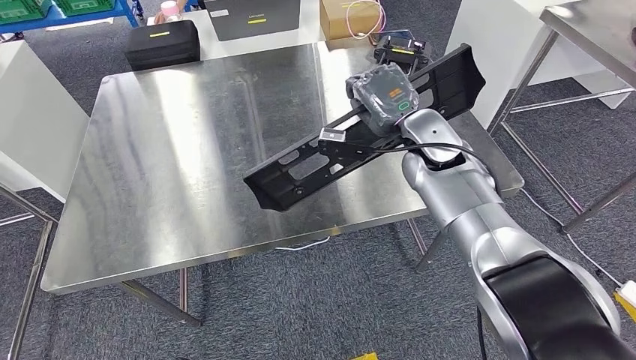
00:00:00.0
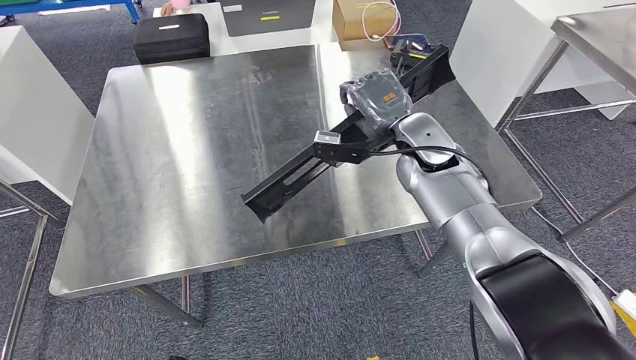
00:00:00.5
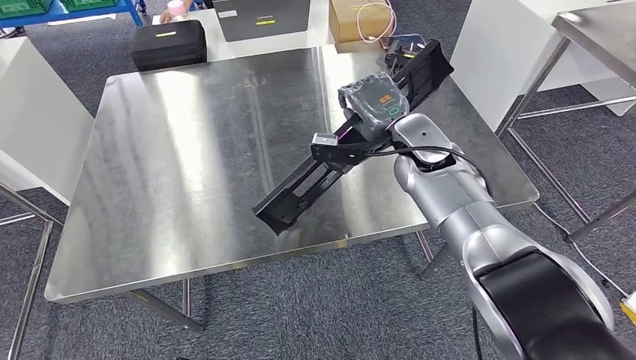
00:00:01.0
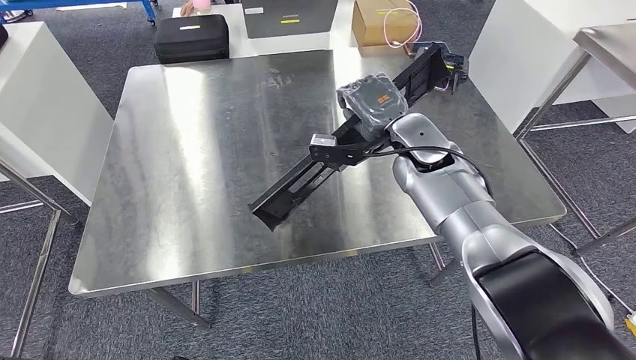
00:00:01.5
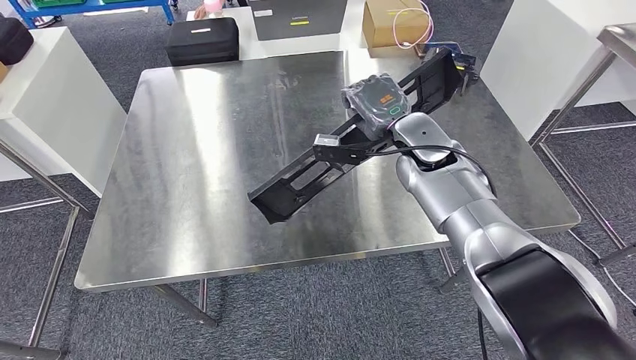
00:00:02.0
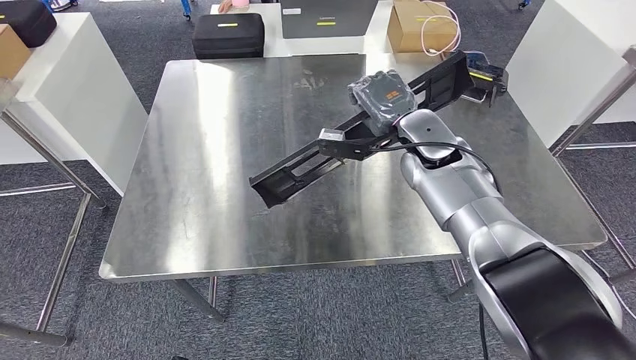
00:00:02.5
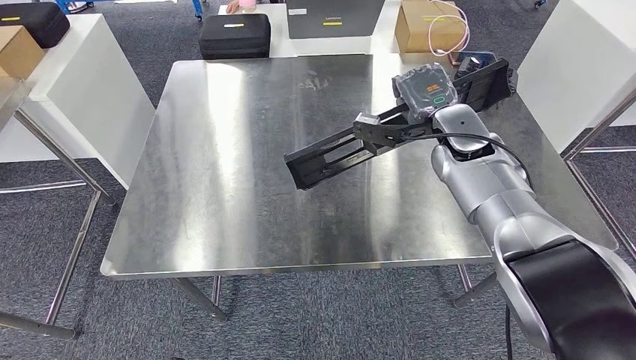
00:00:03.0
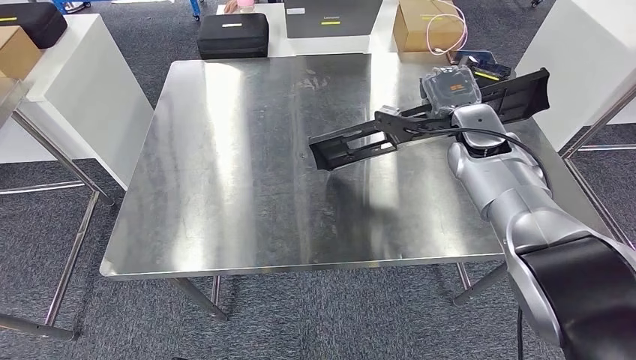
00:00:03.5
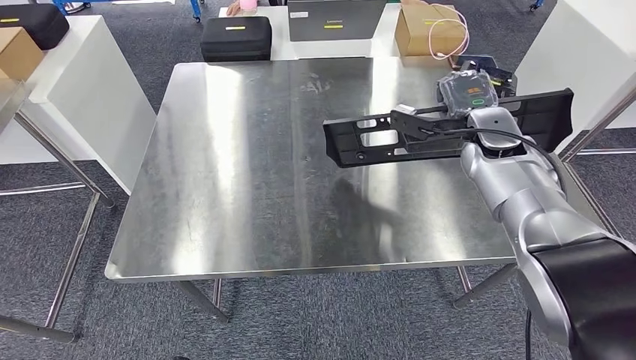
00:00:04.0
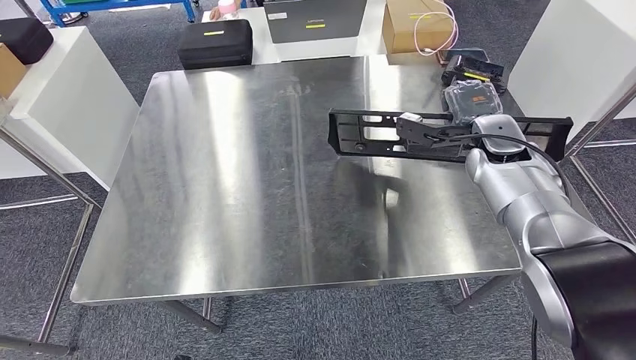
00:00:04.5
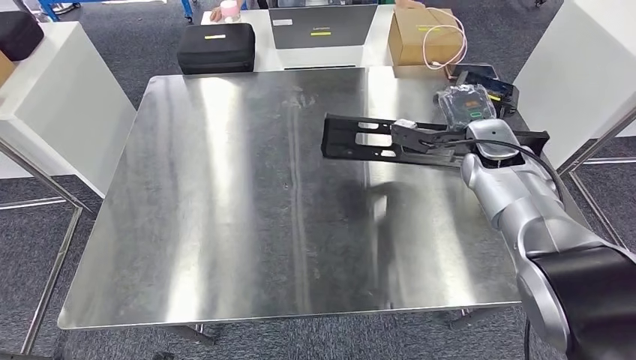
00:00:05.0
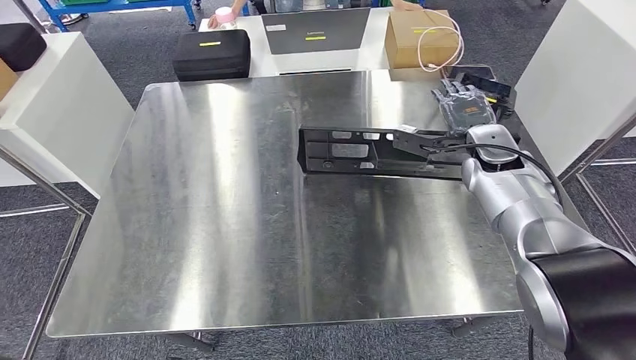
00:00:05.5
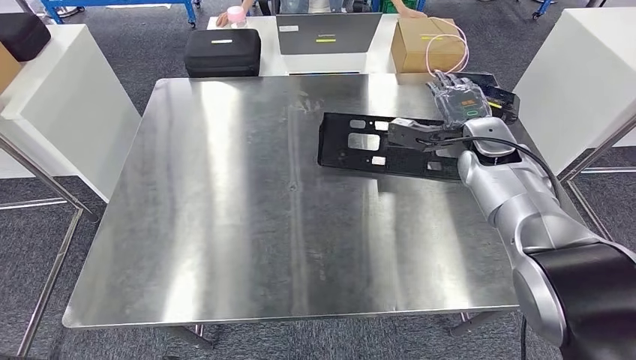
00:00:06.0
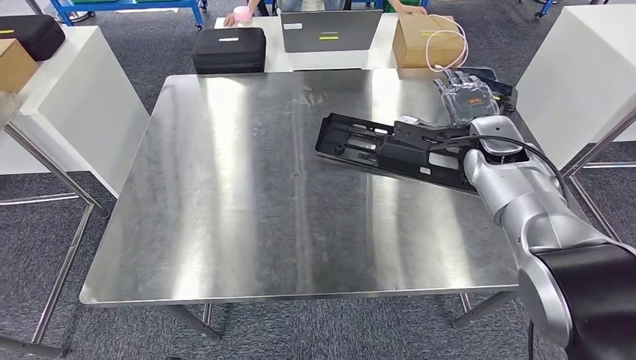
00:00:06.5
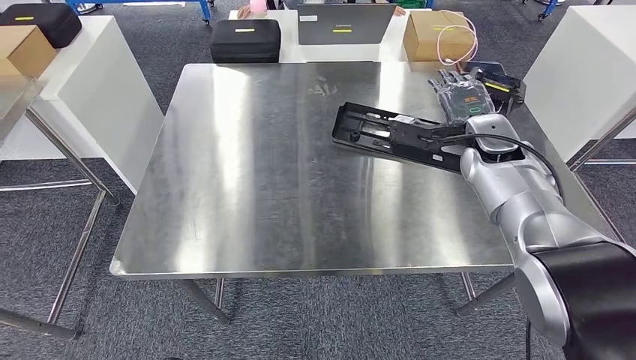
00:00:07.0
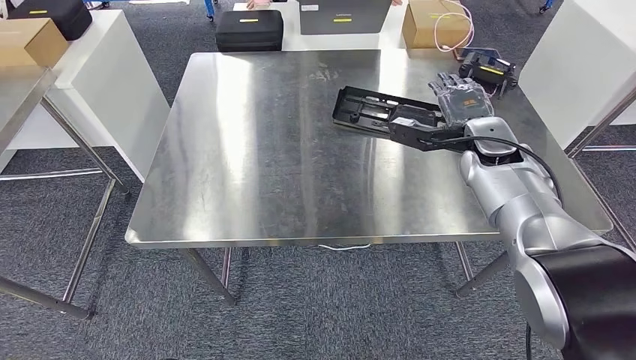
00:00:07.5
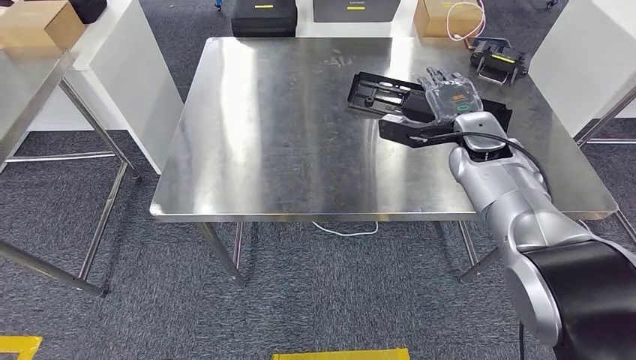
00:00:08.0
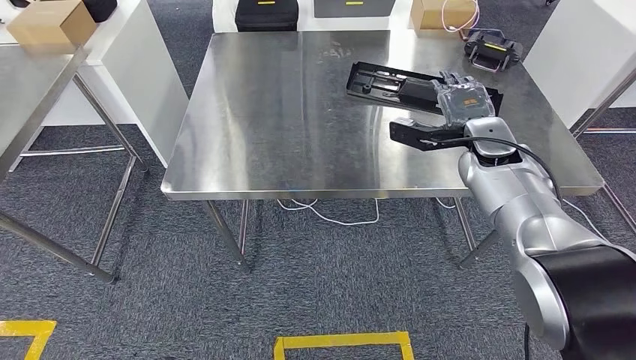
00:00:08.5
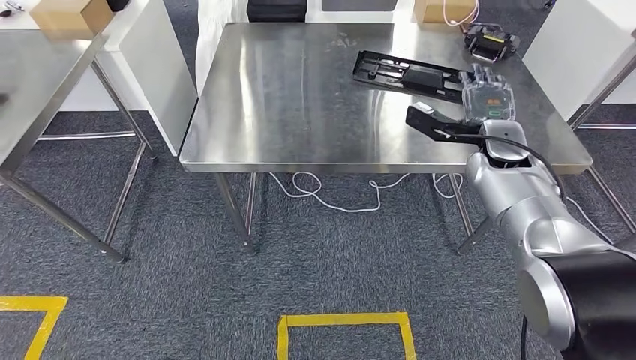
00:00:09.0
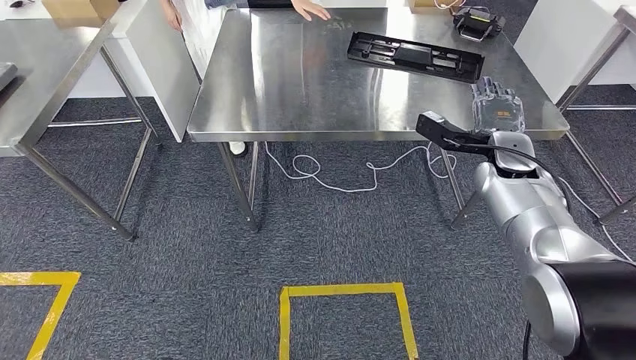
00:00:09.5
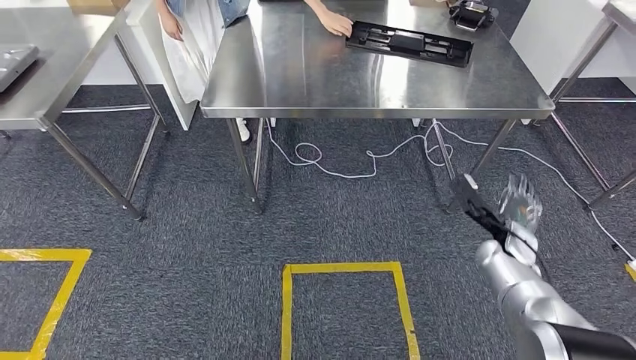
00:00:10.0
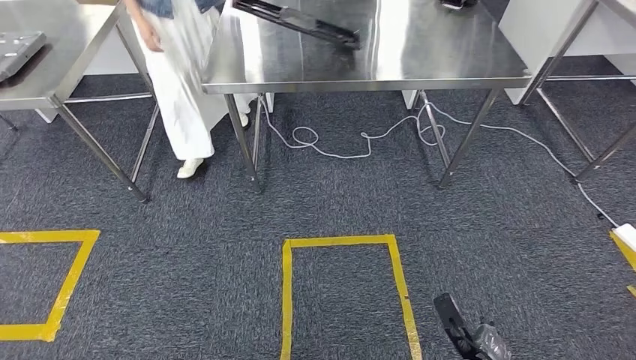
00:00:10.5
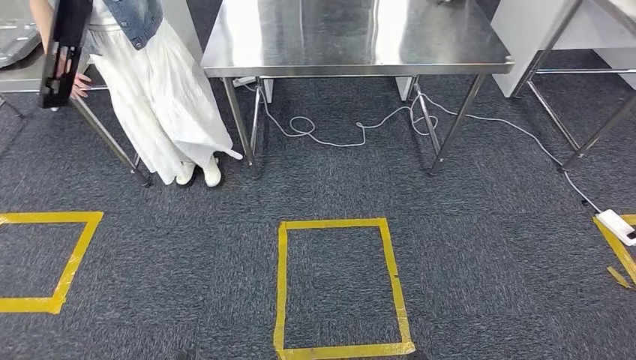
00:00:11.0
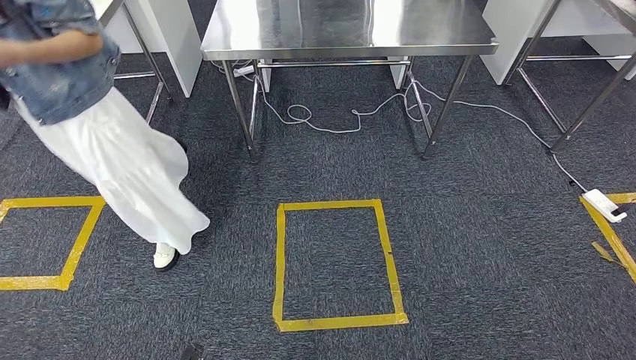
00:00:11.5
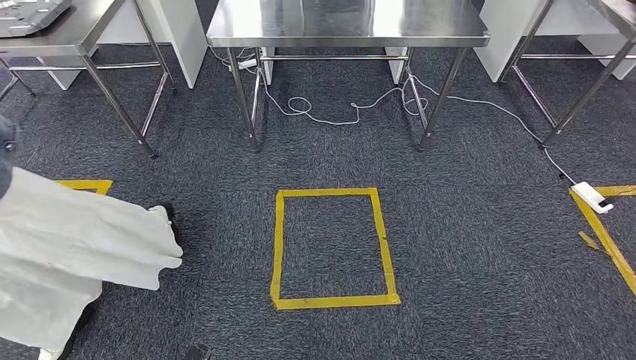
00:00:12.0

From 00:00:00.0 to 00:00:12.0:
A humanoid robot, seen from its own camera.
Step, from 00:00:00.0 to 00:00:06.0: Insert the large material into the corresponding slot on the workbench.

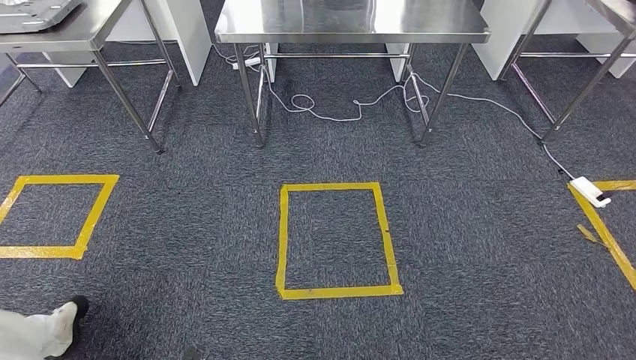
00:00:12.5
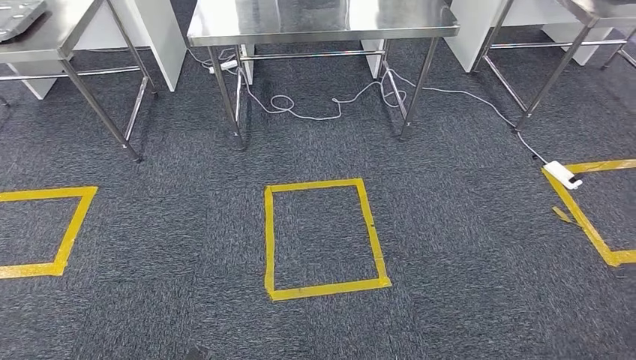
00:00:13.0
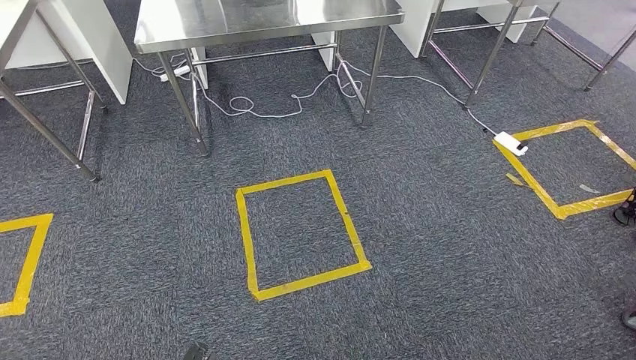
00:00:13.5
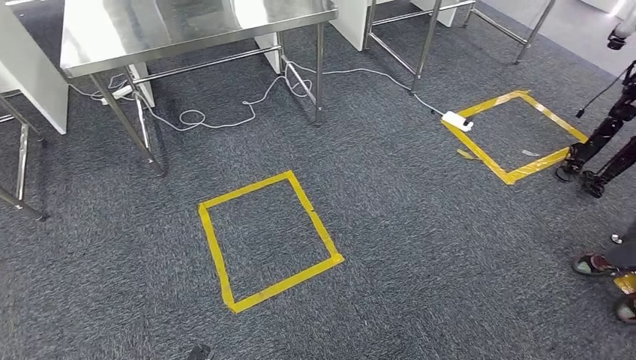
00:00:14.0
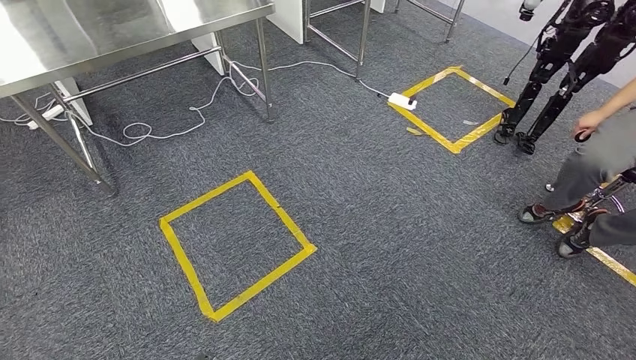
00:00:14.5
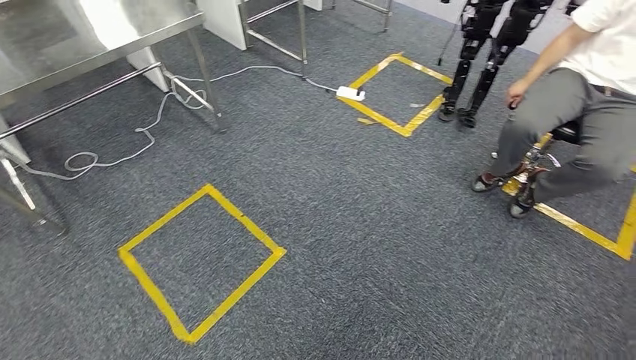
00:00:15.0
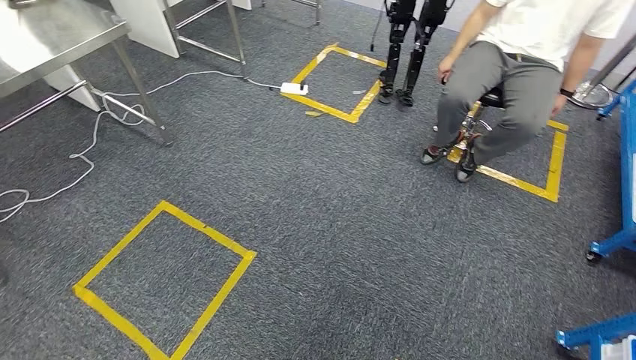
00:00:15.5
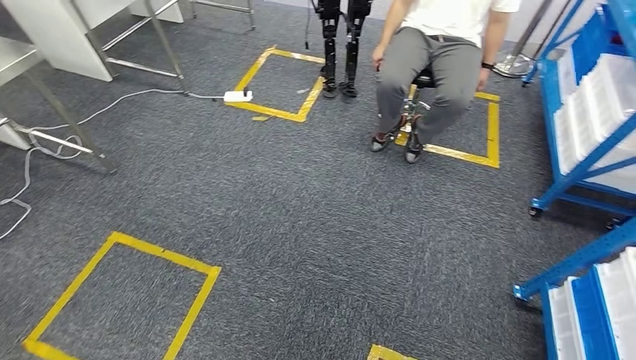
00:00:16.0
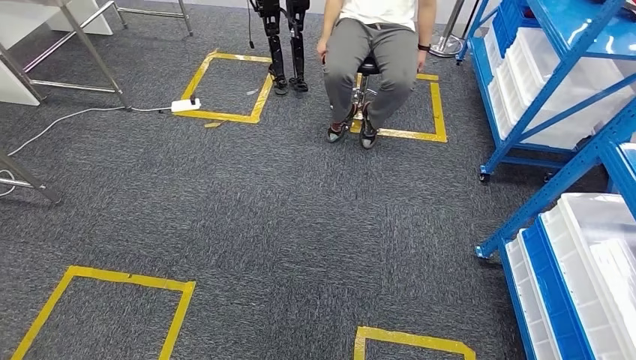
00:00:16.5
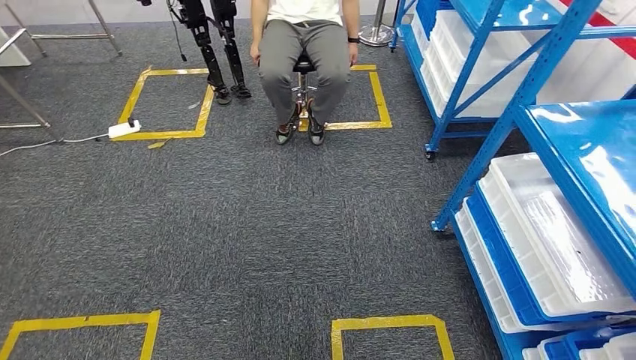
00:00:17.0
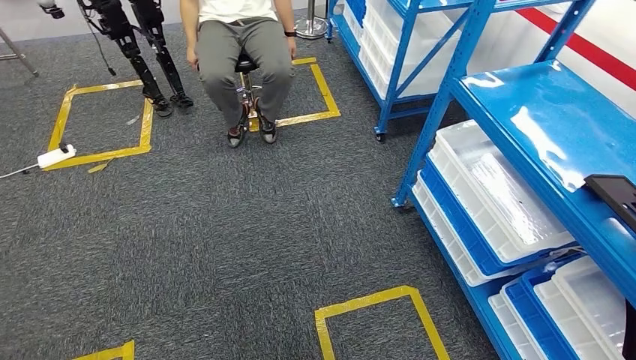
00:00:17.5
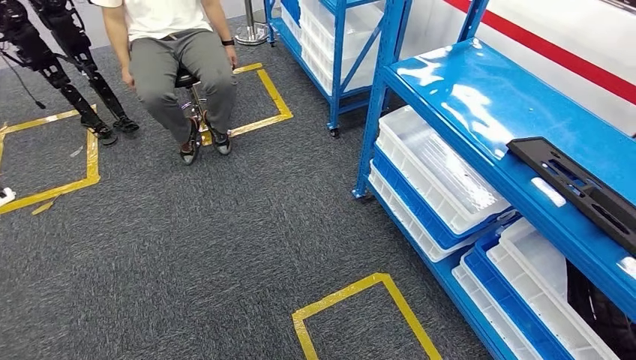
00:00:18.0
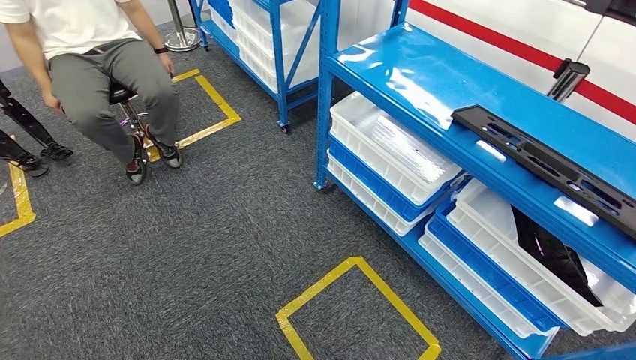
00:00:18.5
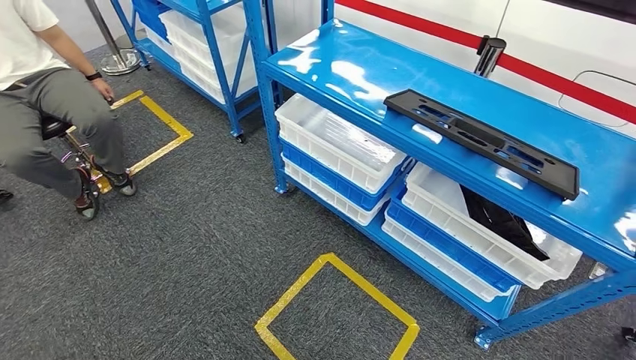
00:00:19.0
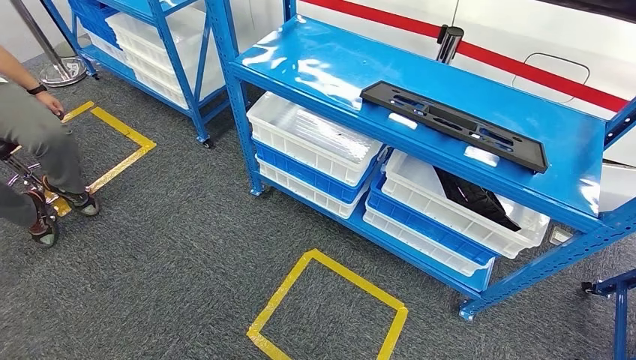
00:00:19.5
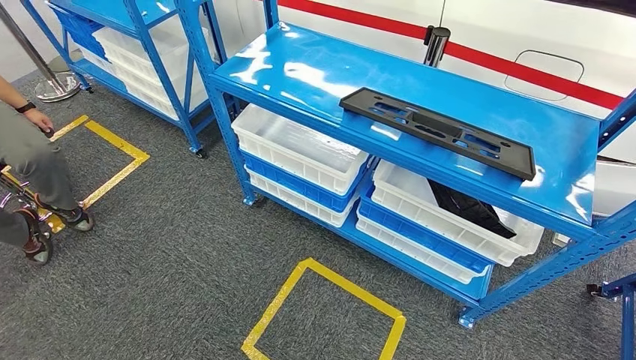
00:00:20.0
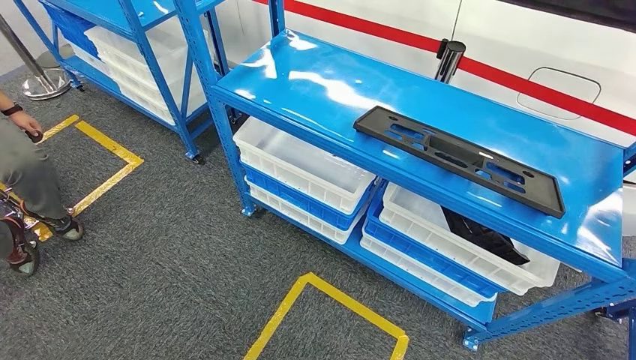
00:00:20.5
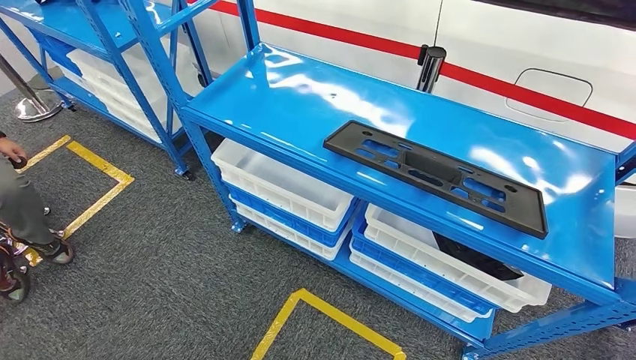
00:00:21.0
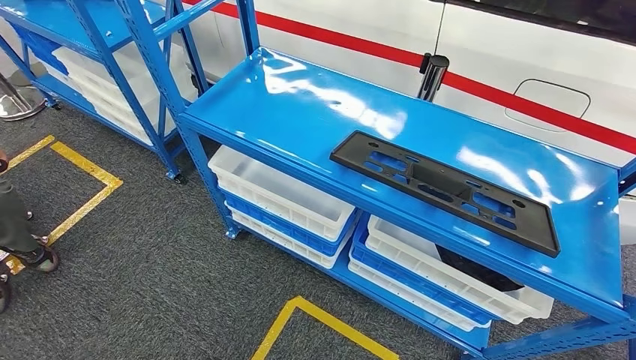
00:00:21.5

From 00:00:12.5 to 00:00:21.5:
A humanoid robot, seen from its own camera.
Step, from 00:00:12.5 to 00:00:21.5: Return to the initial position at the shelf.
